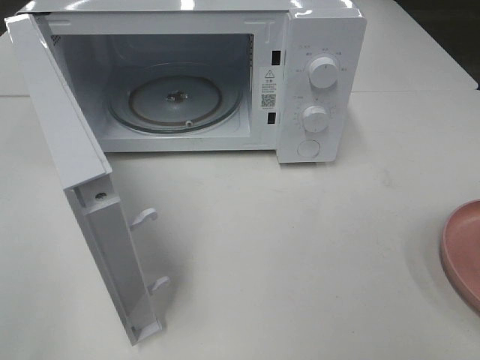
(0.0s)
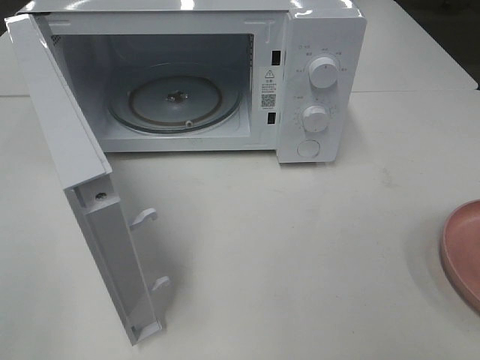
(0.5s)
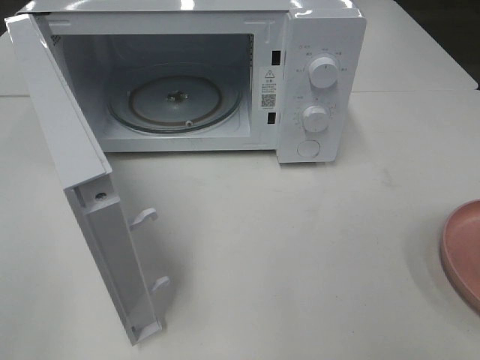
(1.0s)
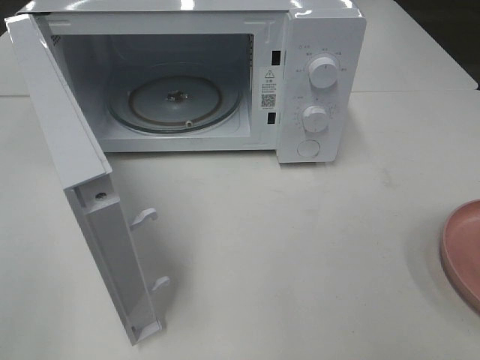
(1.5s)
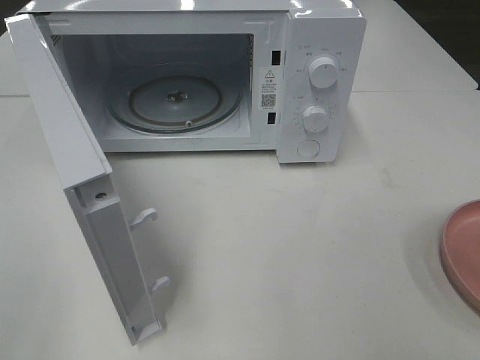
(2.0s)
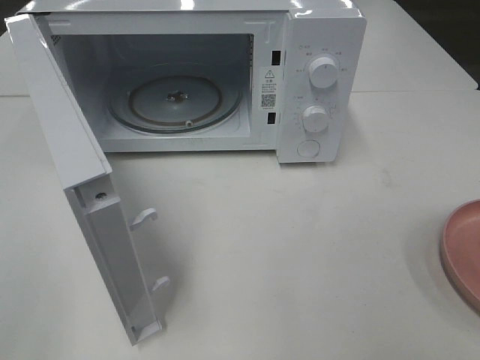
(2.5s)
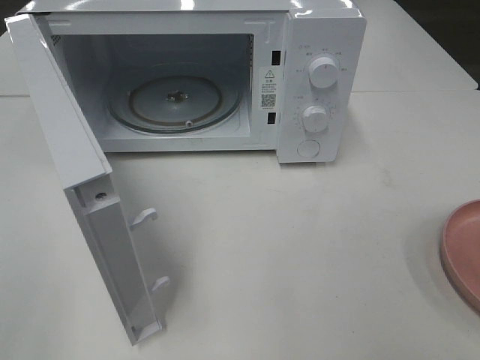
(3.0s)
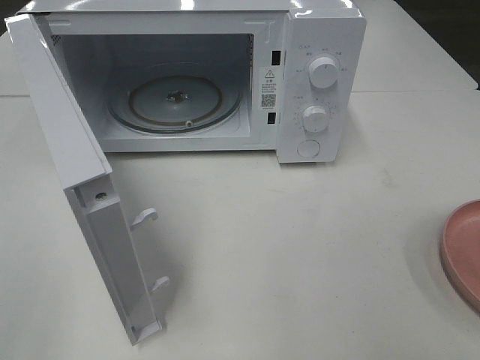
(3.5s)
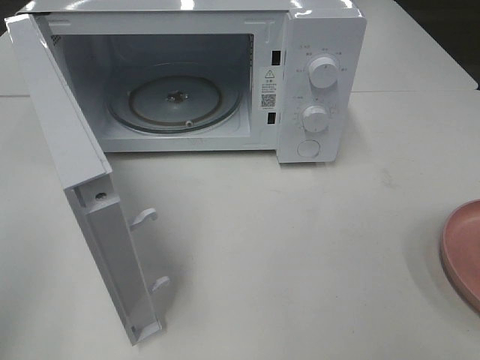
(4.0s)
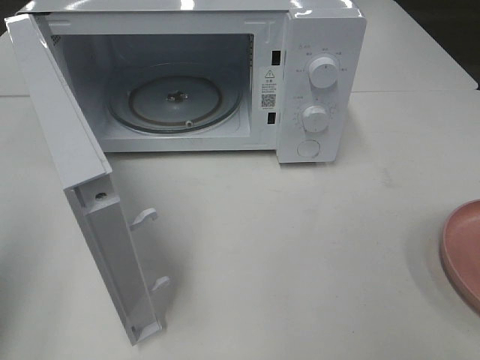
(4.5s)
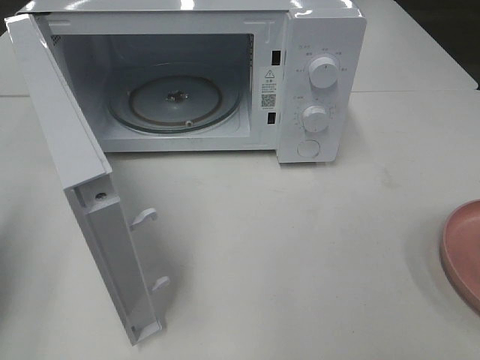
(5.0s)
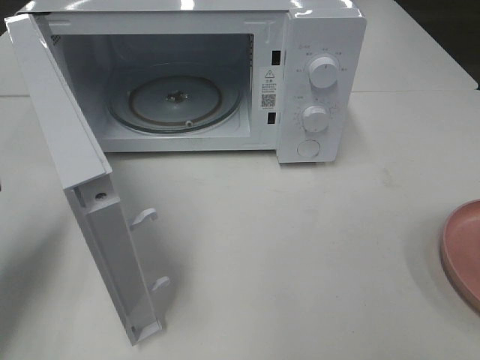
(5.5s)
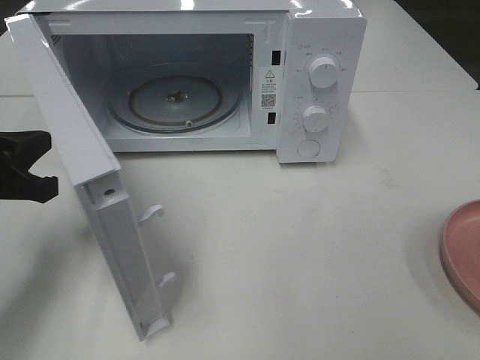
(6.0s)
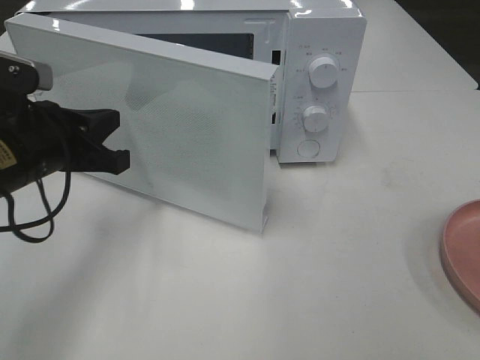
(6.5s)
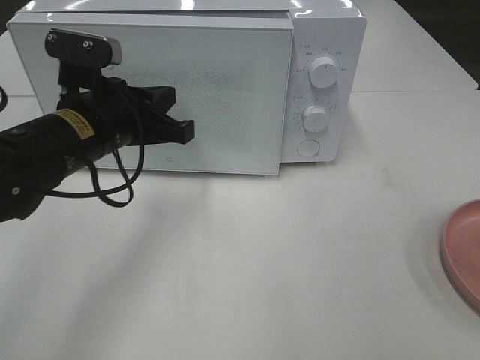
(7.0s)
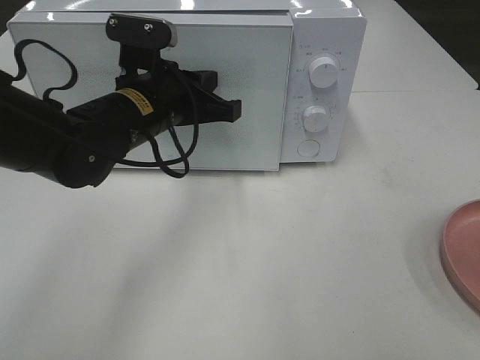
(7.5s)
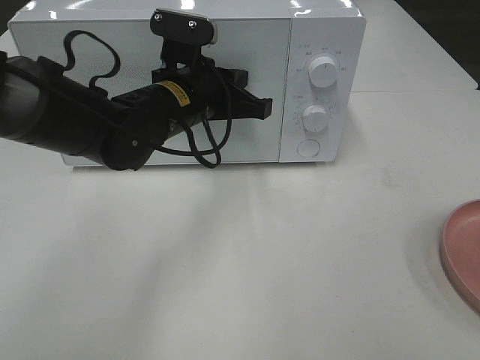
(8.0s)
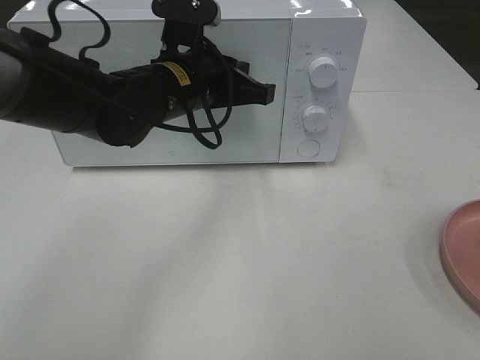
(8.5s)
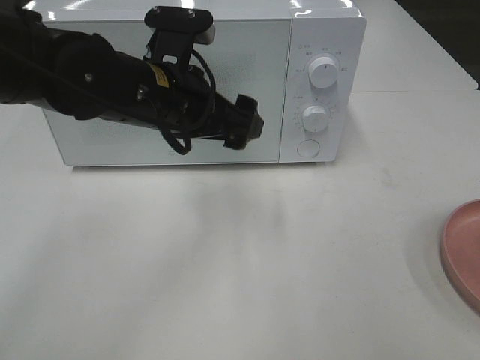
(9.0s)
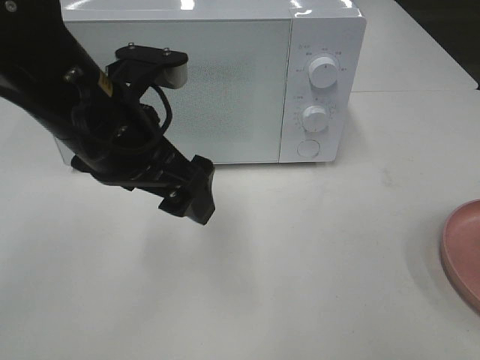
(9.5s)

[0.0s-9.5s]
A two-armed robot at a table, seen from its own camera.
Task of the whole recording: Heat the burger.
Step, 0.0s to 8.5s: Left hand: close the microwave door.
4.0s to 5.5s: The left gripper shifts about 20 cm forward and downward.
5.5s to 7.5s: The left gripper heads to the right and forward, covering roughly 25 cm.
7.5s to 9.5s: The left gripper travels backward and upward by some 10 cm, and opens.

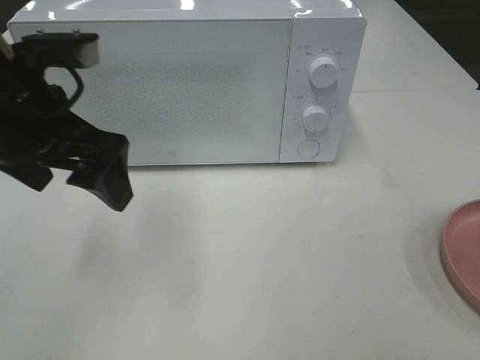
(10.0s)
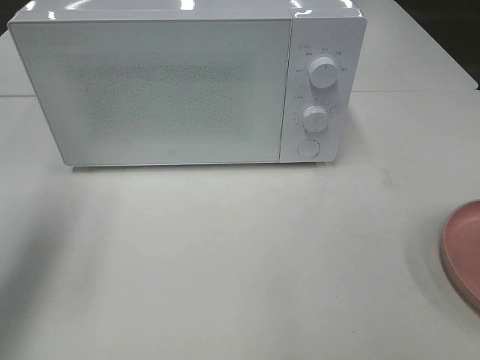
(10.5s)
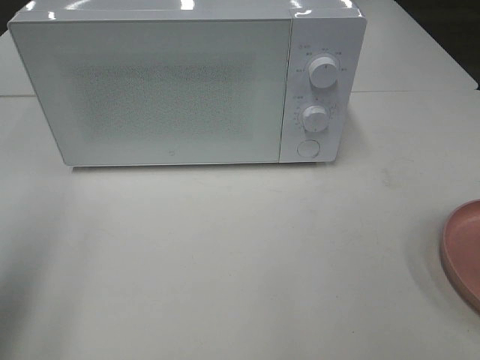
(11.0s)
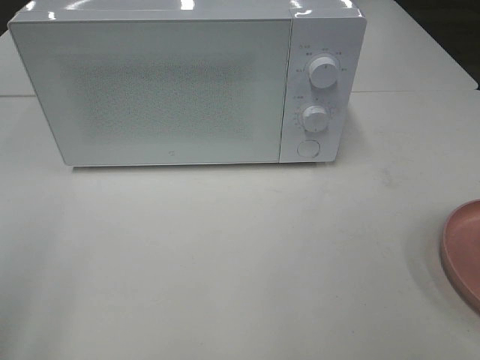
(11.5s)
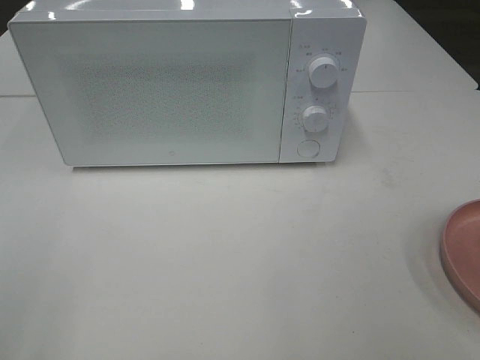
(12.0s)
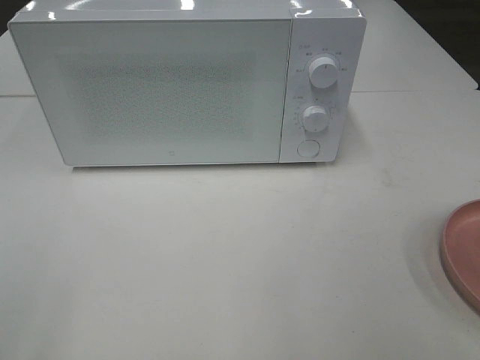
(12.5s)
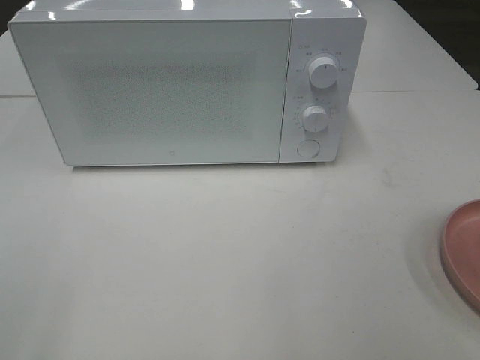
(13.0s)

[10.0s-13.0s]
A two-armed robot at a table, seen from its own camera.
Task of the whole recording: Heat the burger.
10.0s to 11.5s: The left gripper moves backward and to the left, about 25 cm.
